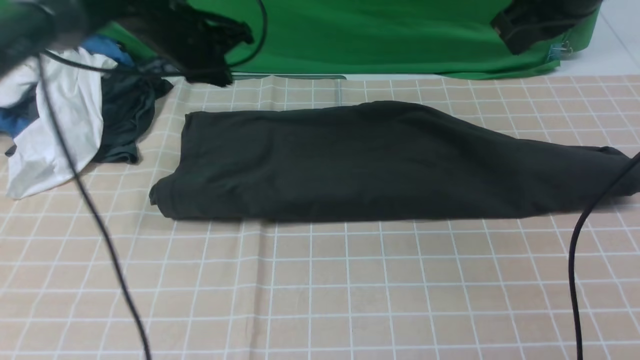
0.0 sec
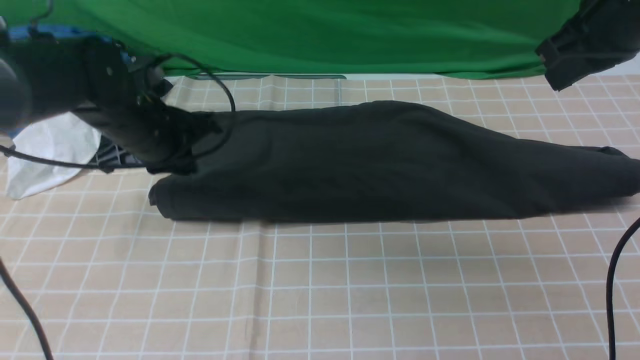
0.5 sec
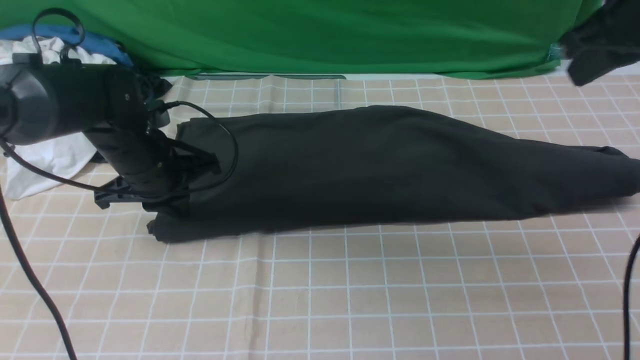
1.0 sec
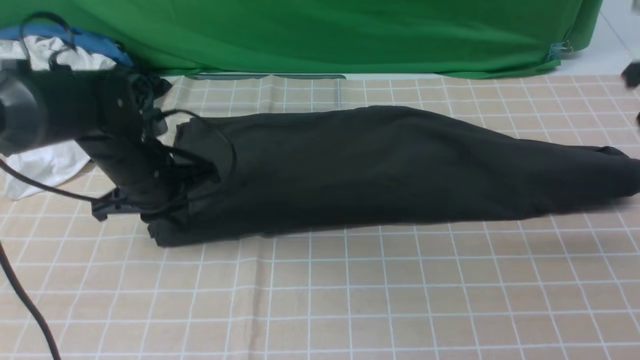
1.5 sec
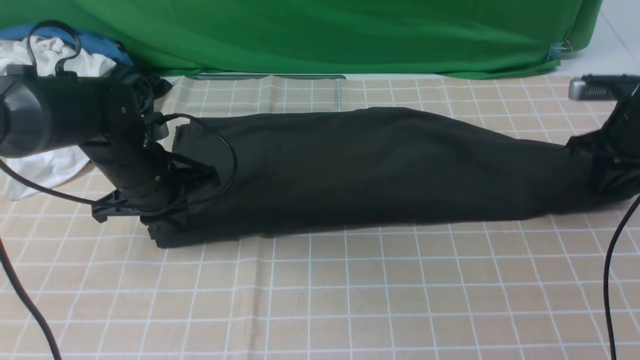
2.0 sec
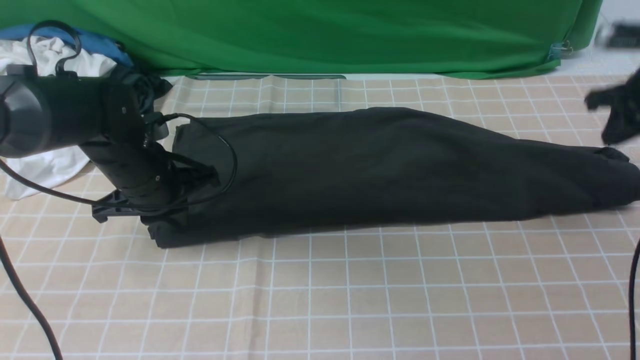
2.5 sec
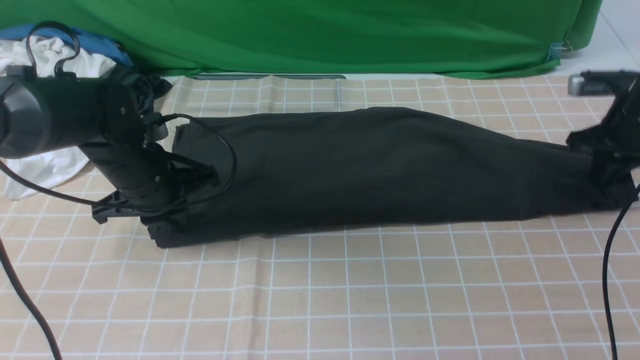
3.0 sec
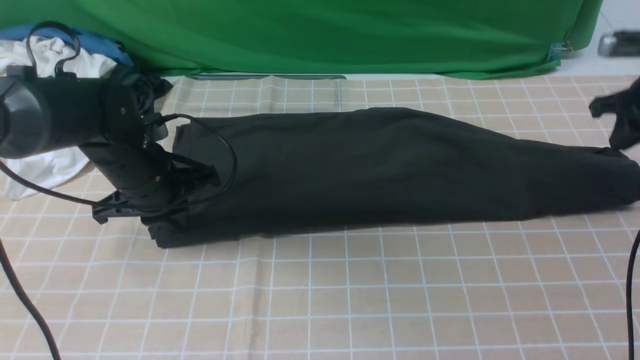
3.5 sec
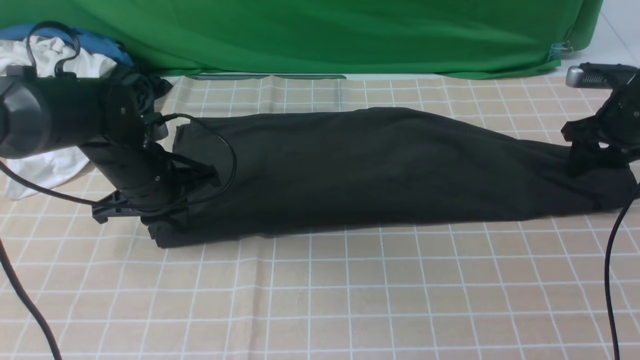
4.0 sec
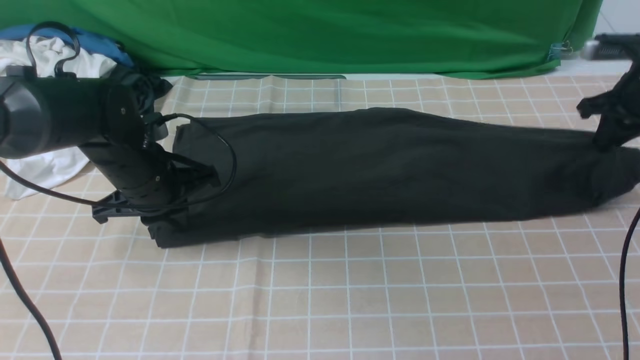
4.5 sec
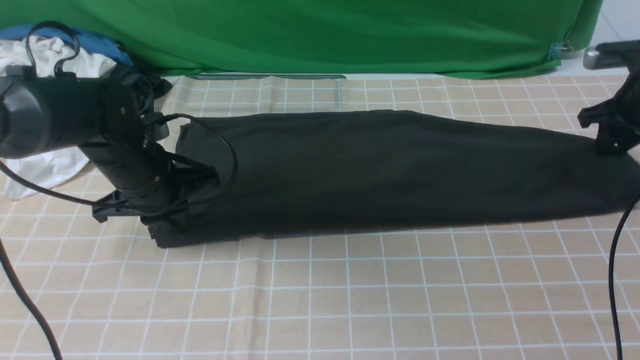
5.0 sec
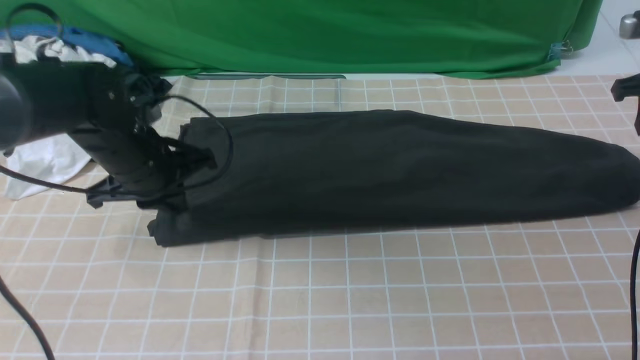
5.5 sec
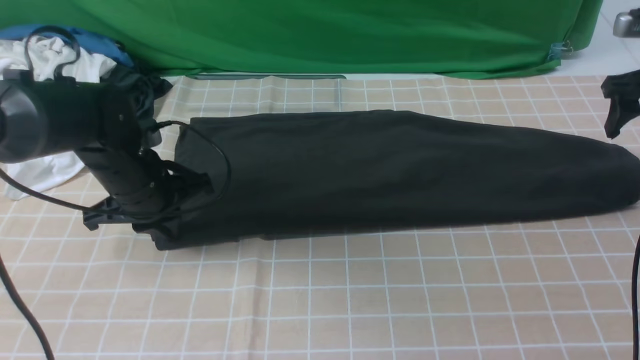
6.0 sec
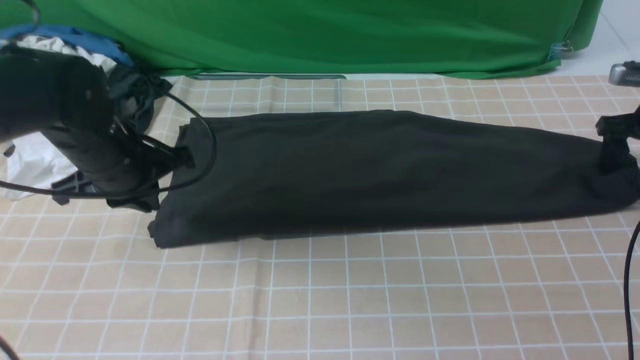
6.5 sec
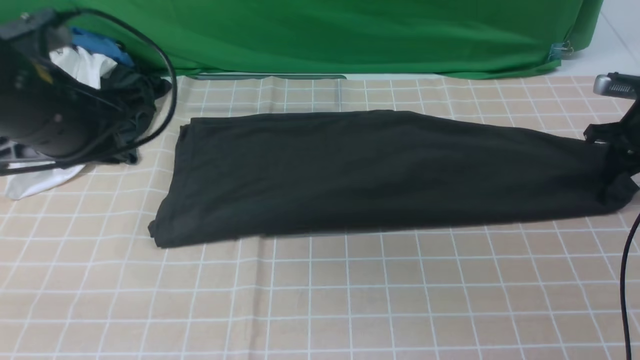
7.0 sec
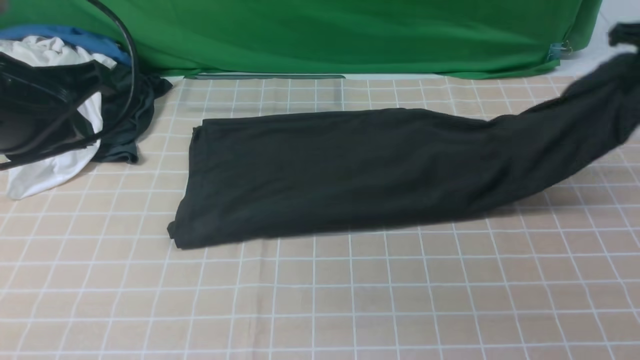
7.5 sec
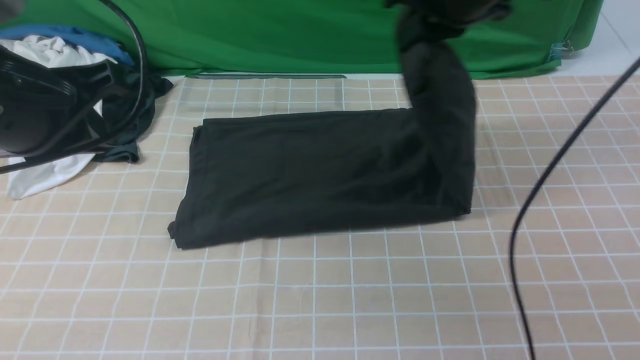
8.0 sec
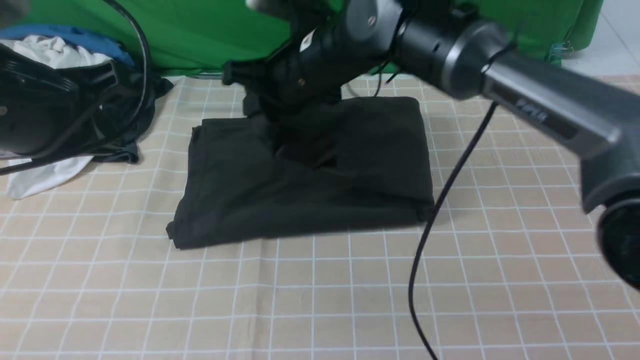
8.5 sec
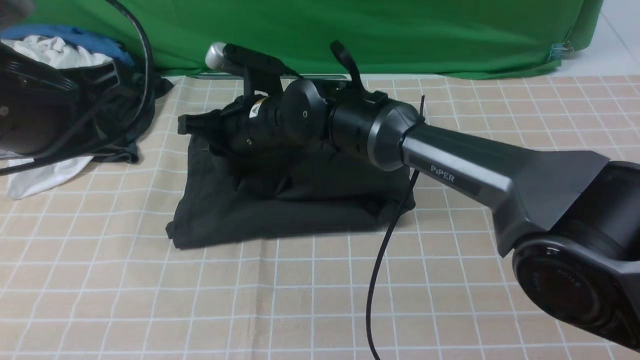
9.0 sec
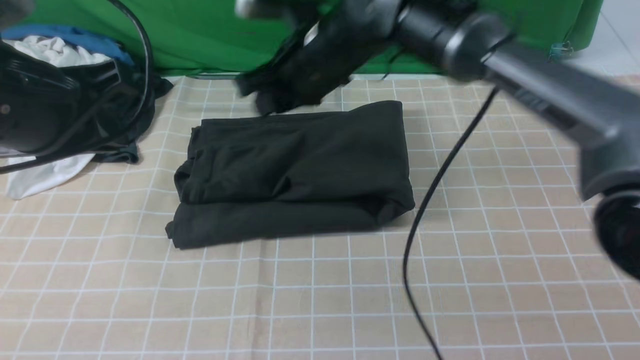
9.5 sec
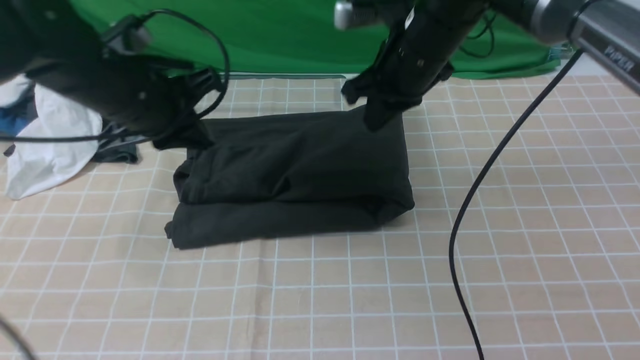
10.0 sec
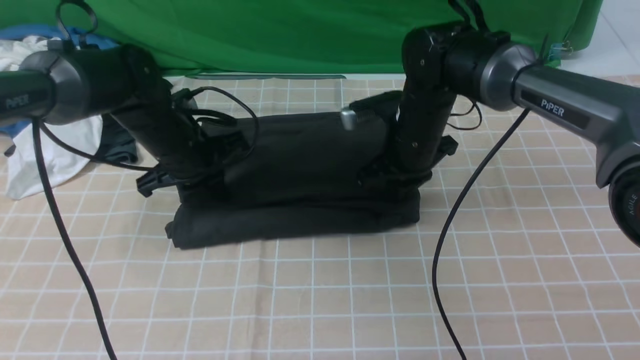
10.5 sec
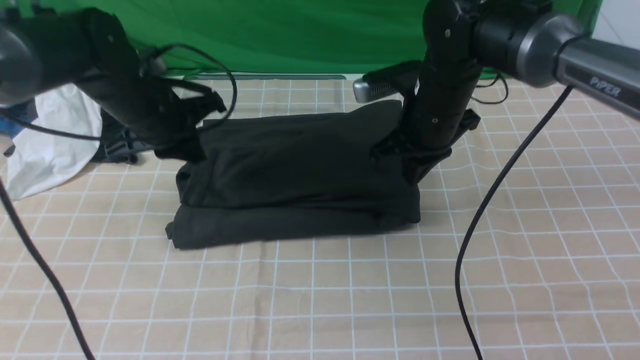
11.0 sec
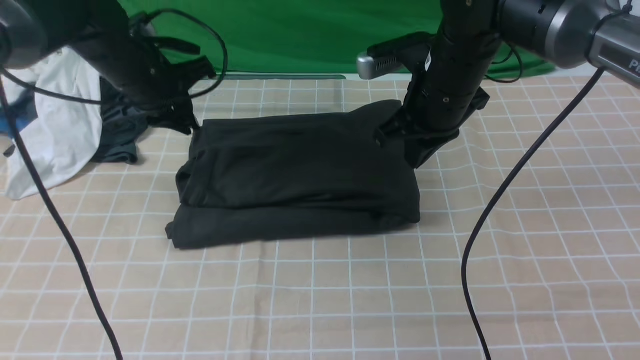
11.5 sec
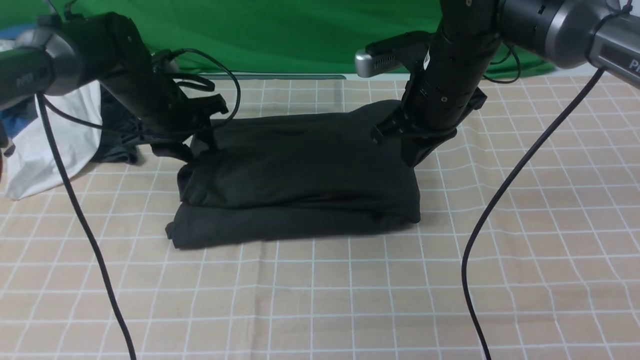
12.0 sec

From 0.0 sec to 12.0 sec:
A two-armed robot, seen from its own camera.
Step, from 0.5 sec to 7.0 sec: use the right arm to clamp the right edge of the fabric.
Step, from 7.5 sec to 9.0 sec: use the right arm to drag the right edge of the fabric to the left and folds it over the left edge.
From 0.0 sec to 2.0 sec: The right gripper moves downward and to the right, approximately 25 cm. Meanwhile the left gripper is displaced backward and downward by some 15 cm.
From 2.0 sec to 4.0 sec: The right gripper opens up.
From 4.0 sec to 6.0 sec: The right gripper heads upward, covering approximately 5 cm, and opens.
From 6.0 sec to 8.0 sec: The right gripper shifts roughly 30 cm to the left, and closes, while the left gripper travels upward and backward by about 20 cm.
From 8.0 sec to 10.0 sec: The left gripper shifts roughly 15 cm forward and downward, while the right gripper travels downward by roughly 10 cm, moves some 20 cm to the left and comes back, and opens and closes again.
From 10.0 sec to 12.0 sec: The left gripper goes about 15 cm forward and downward, and opens its fingers; the right gripper reaches some 10 cm downward, then returns.

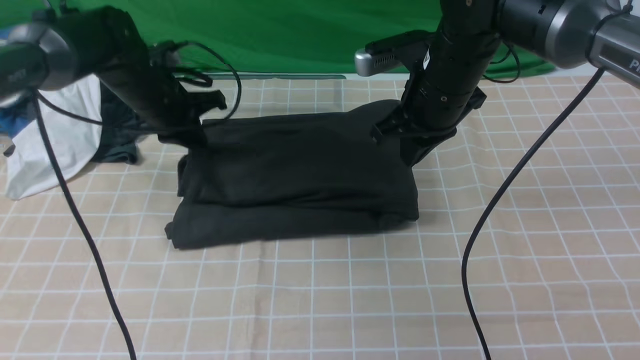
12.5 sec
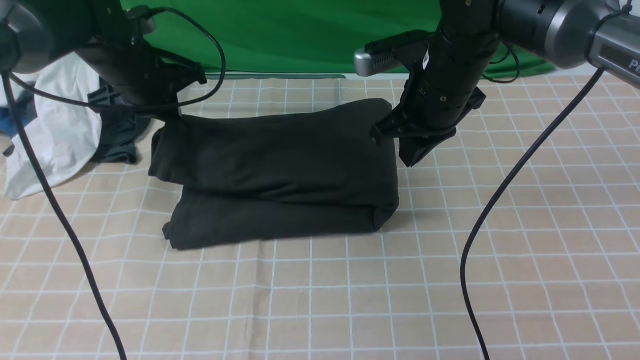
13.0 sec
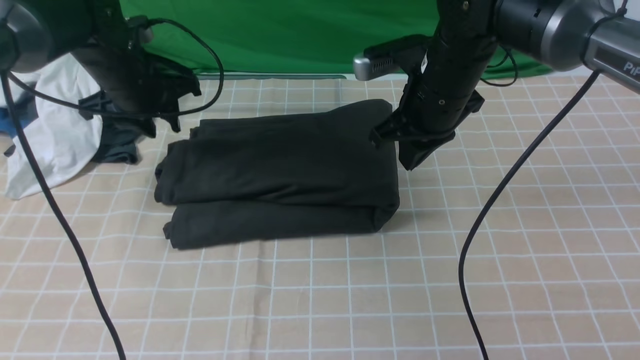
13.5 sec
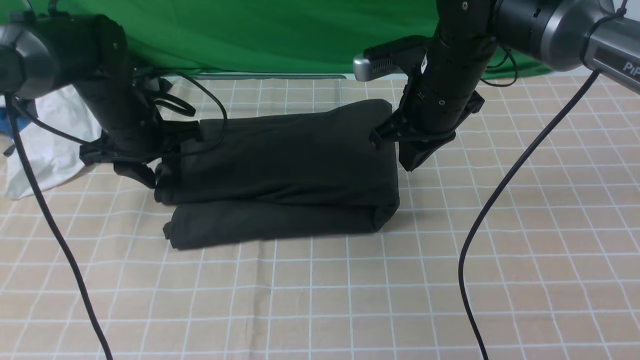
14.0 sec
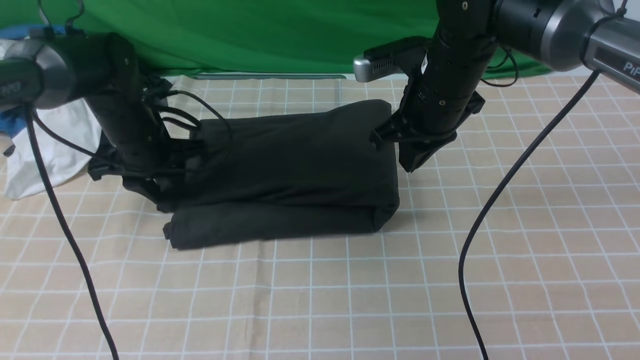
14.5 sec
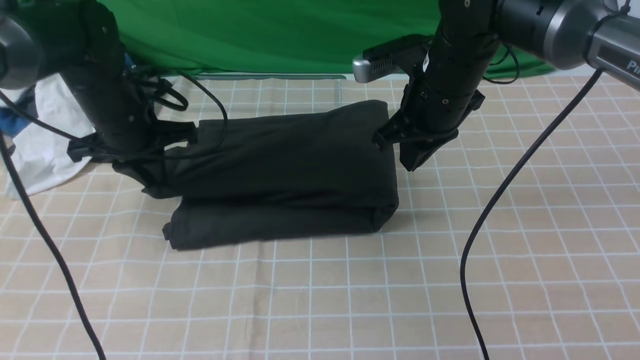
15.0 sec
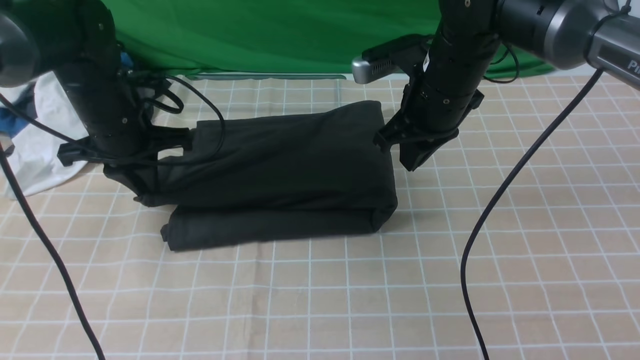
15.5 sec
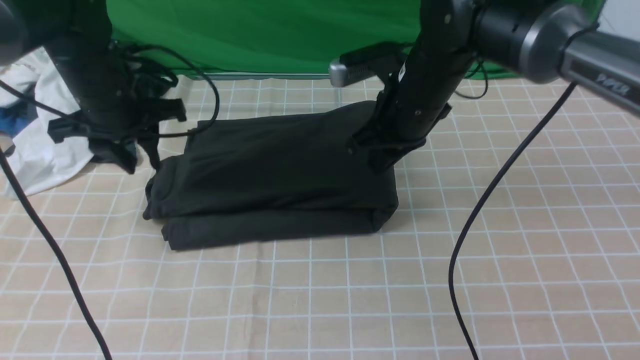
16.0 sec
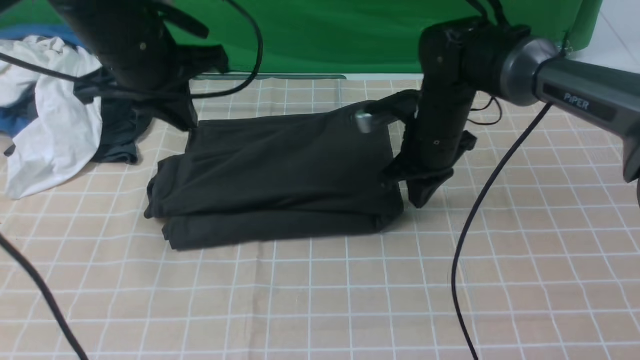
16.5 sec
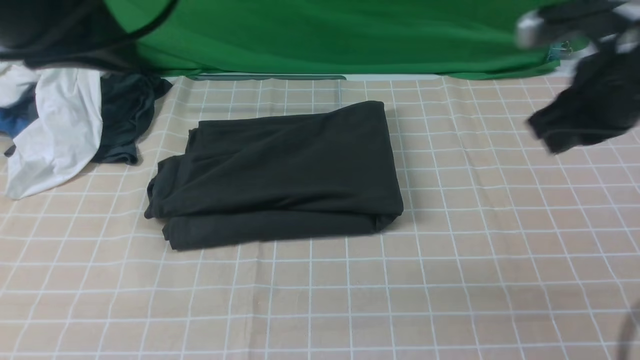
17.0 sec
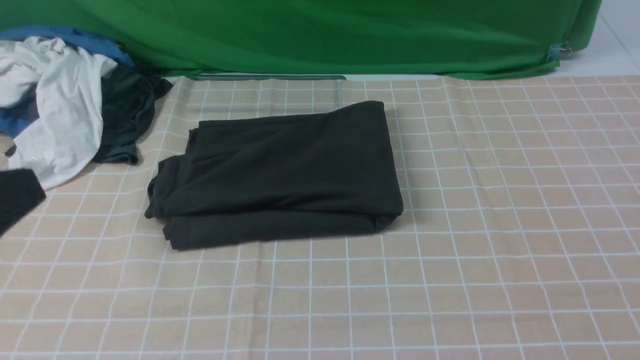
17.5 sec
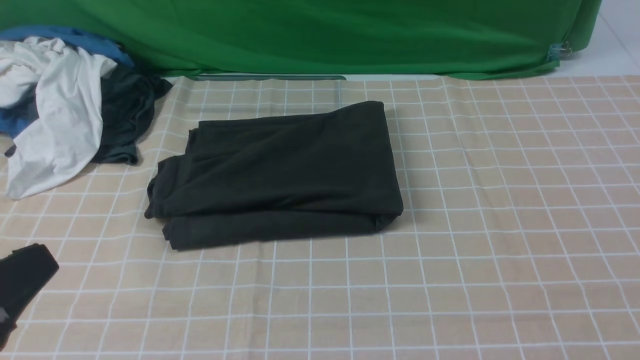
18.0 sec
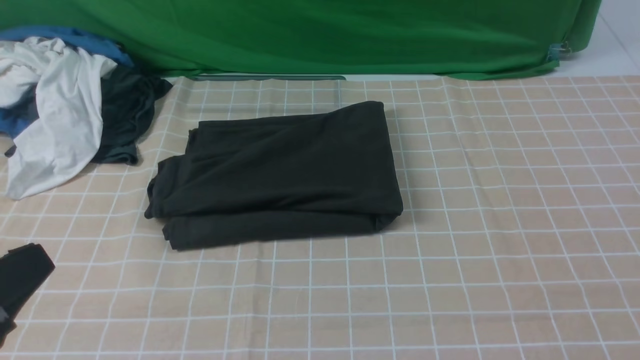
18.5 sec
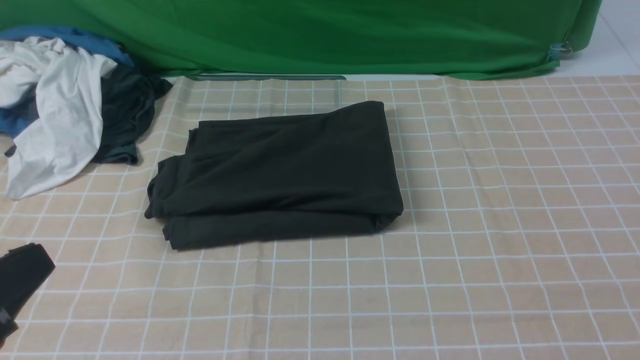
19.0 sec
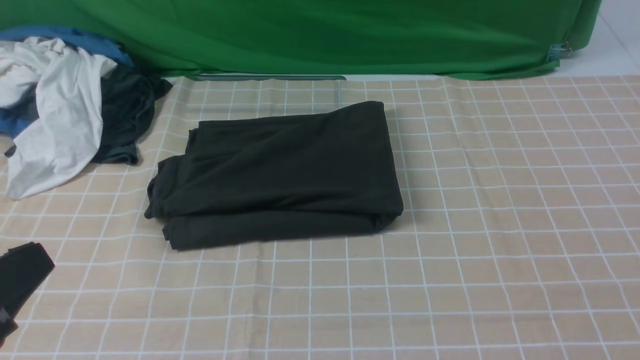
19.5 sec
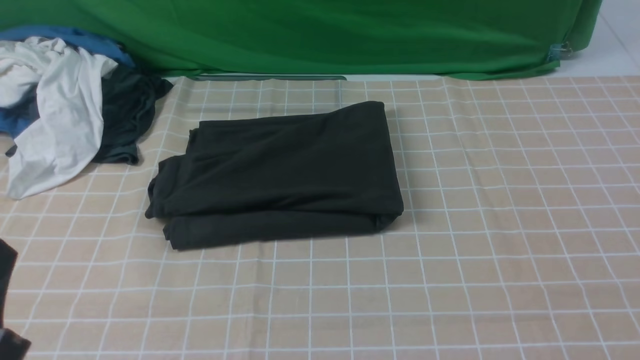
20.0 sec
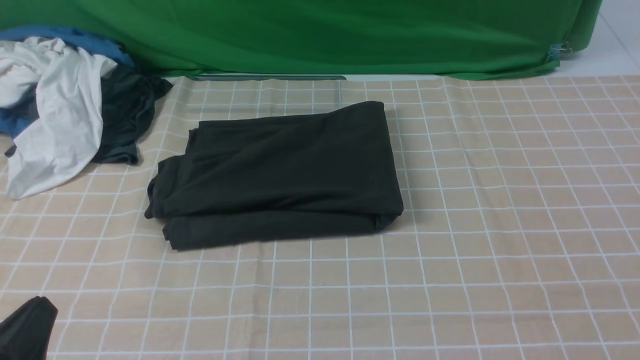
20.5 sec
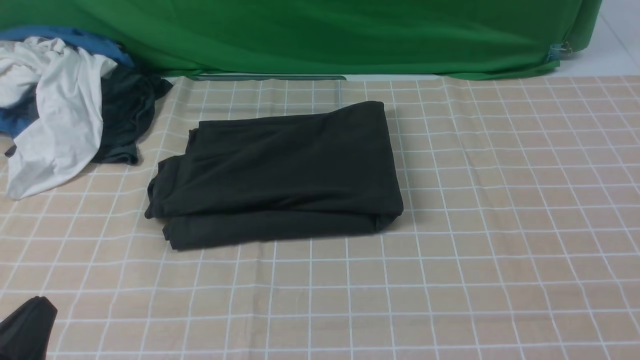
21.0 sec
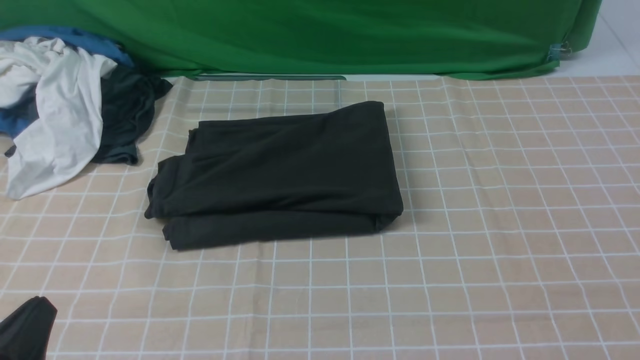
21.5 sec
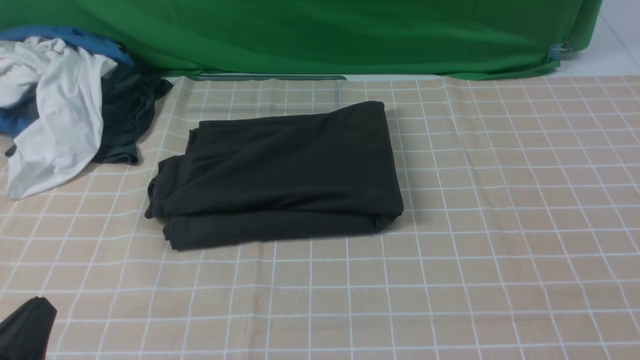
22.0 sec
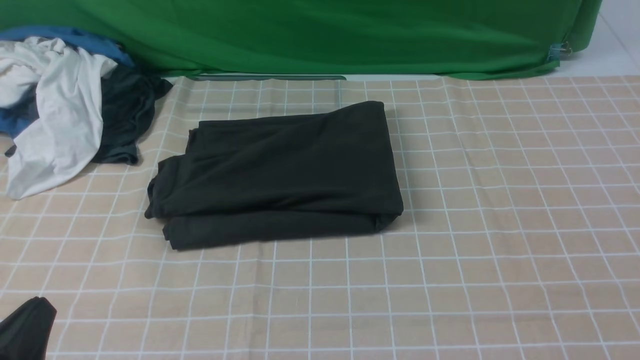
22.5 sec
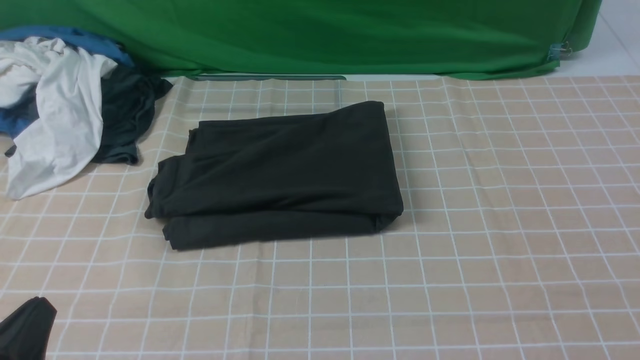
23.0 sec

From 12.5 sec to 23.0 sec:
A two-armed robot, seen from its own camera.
From 12.5 sec to 14.5 sec: The left gripper changes place by some 5 cm, and opens up.
From 14.5 sec to 16.5 sec: The right gripper shifts roughly 5 cm downward. Meanwhile the left gripper shifts about 15 cm upward, and closes.
From 16.5 sec to 19.0 sec: The right gripper moves backward and to the right, about 40 cm, while the left gripper shifts roughly 30 cm backward.
From 19.0 sec to 21.0 sec: The left gripper moves downward, some 10 cm.
